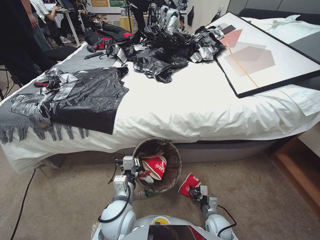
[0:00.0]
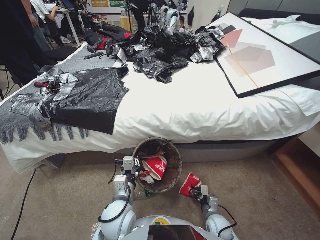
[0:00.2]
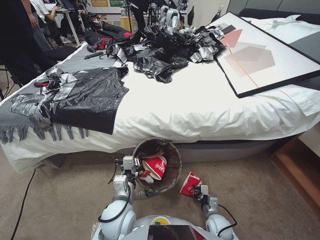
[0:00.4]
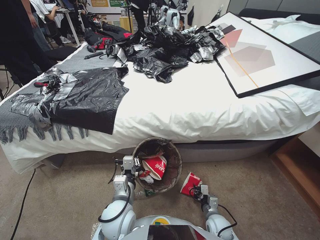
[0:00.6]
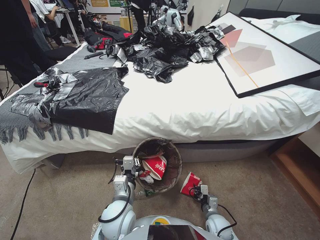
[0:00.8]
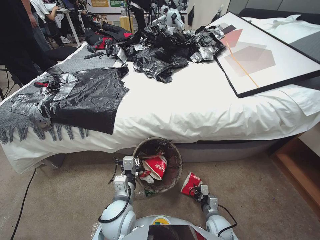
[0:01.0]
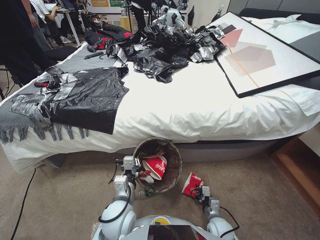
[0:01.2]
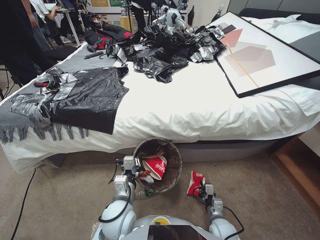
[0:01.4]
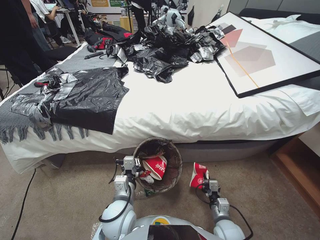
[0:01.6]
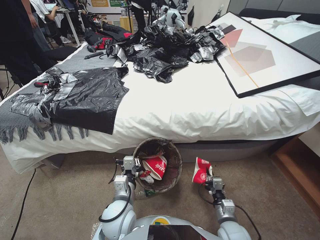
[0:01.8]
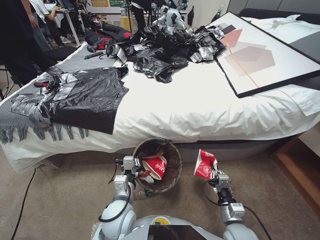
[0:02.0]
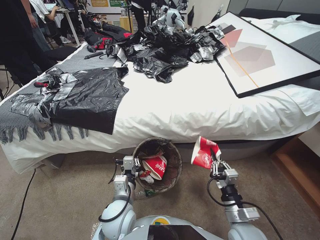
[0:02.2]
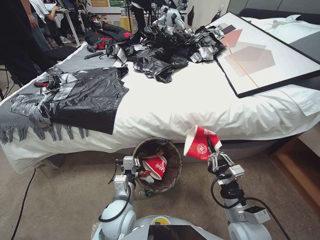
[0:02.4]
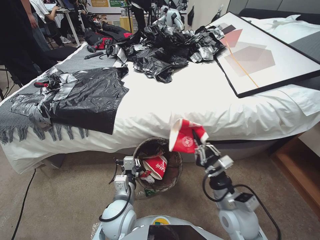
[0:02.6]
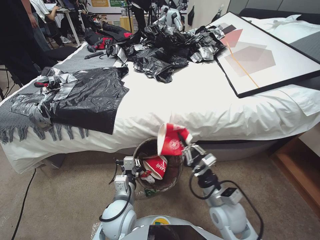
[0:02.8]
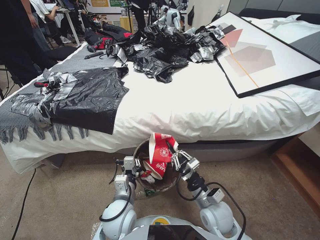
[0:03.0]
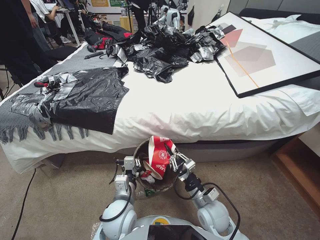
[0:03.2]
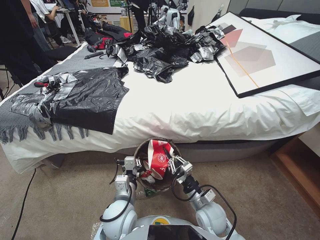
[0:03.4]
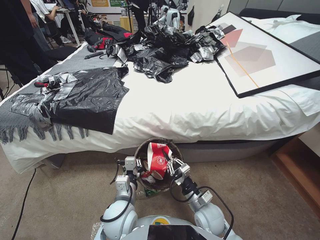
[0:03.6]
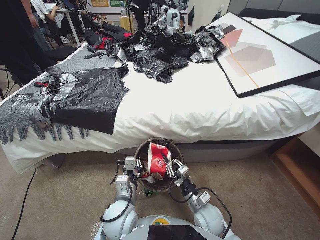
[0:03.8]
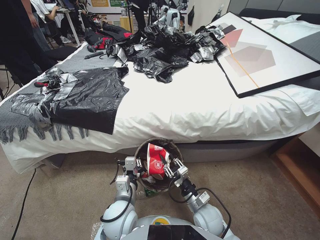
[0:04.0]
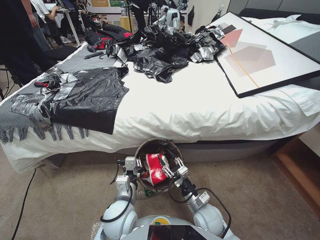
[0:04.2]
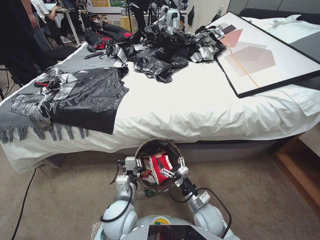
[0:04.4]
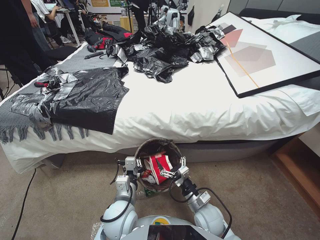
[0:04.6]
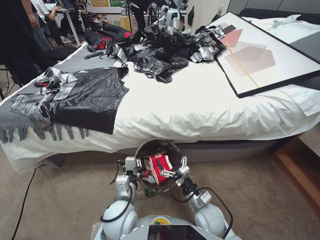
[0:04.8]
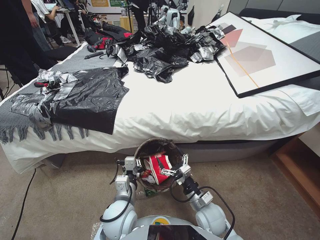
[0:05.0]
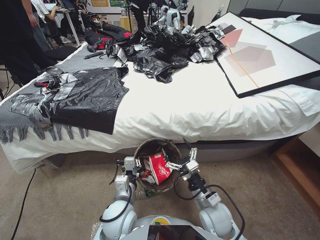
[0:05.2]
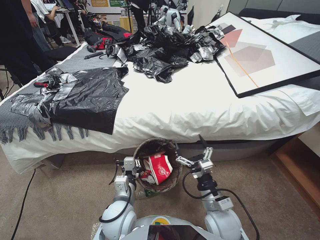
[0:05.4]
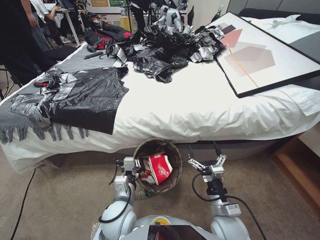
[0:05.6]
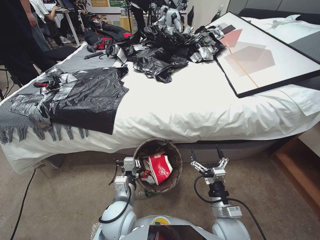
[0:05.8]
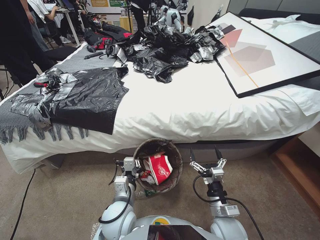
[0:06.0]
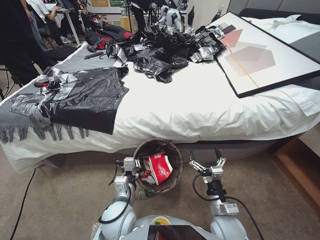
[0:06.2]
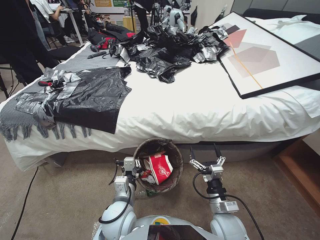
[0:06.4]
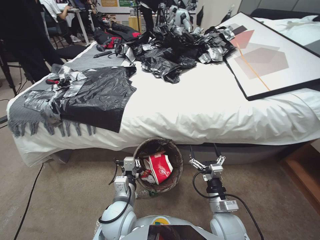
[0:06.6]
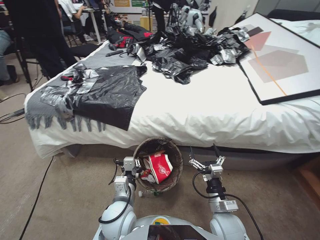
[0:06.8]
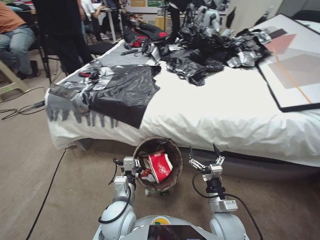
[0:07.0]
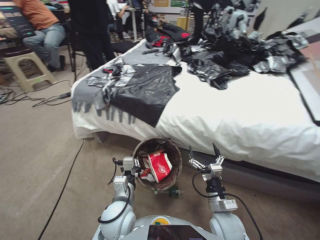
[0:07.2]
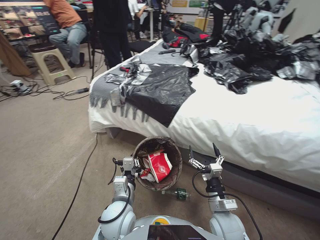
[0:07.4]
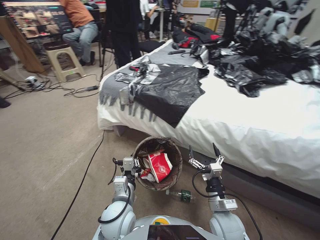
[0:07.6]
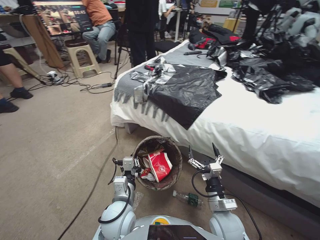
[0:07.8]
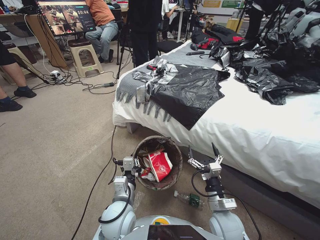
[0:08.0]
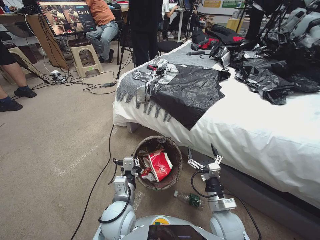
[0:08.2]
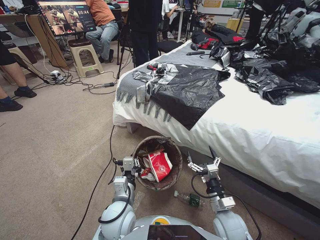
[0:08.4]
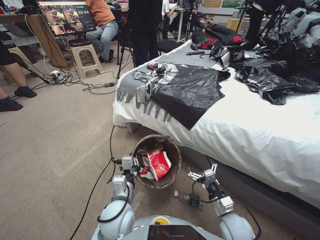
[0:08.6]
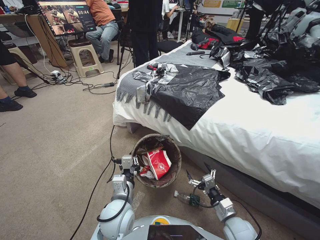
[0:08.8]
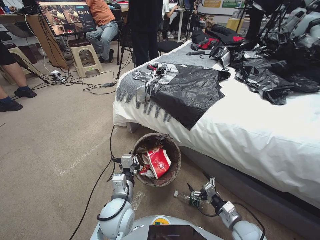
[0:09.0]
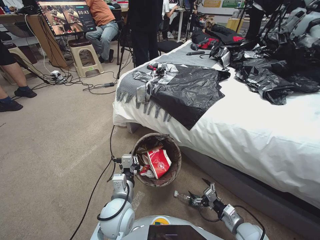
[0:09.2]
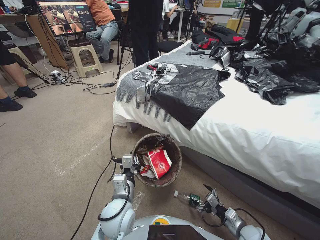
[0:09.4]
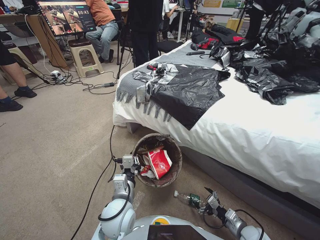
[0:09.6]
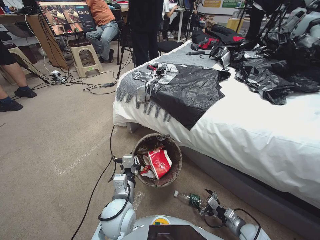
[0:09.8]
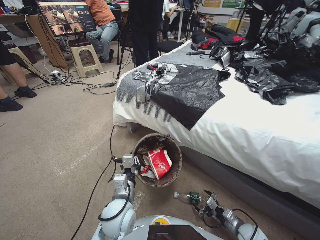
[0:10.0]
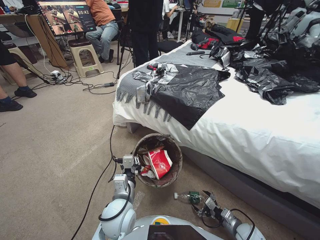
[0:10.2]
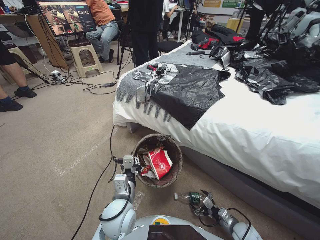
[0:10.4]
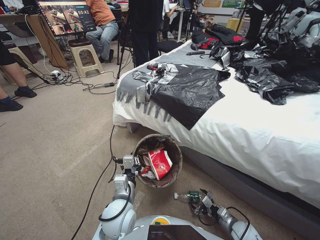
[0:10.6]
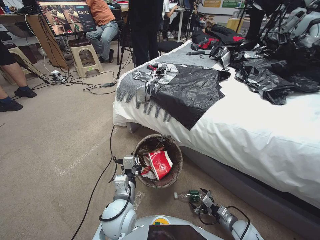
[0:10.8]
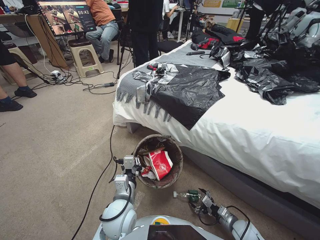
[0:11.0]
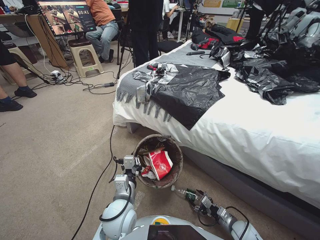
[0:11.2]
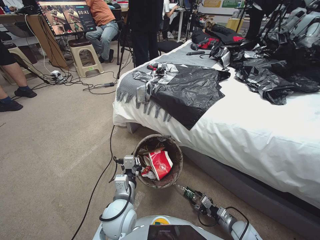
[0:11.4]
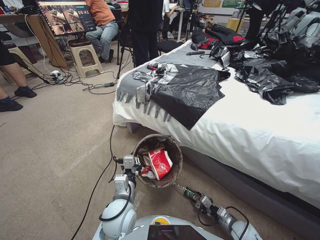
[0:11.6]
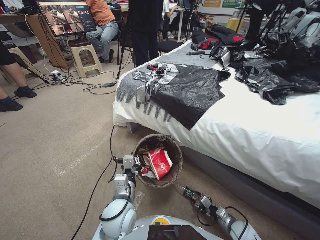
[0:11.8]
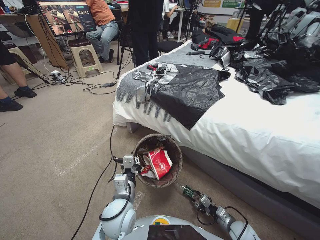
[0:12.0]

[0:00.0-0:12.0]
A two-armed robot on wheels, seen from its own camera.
Task of the whole recording: Pick up the trash bin, then pick up the garbage from the floor and place it into the trash bin.
0:00.0 to 0:01.6: The right gripper travels upward by about 5 cm, and closes up.
0:01.6 to 0:03.0: The right gripper shifts some 20 cm upward.
0:03.0 to 0:04.4: The right gripper travels downward by about 10 cm, and opens up.
0:04.4 to 0:06.0: The right gripper goes roughly 5 cm upward.
0:07.6 to 0:09.0: The right gripper heads to the right and downward, covering about 10 cm.
0:09.0 to 0:10.4: The right gripper travels downward and to the right by about 10 cm.
0:10.4 to 0:12.0: The right gripper closes.

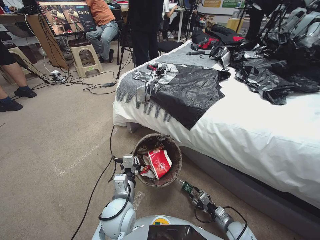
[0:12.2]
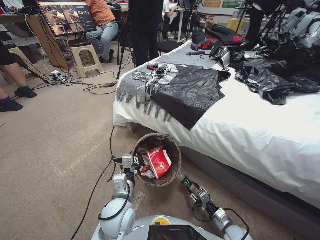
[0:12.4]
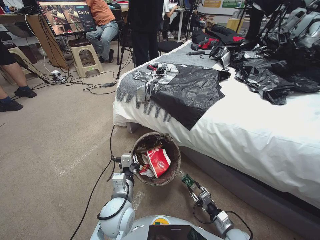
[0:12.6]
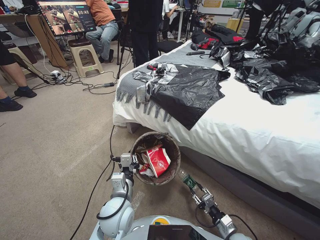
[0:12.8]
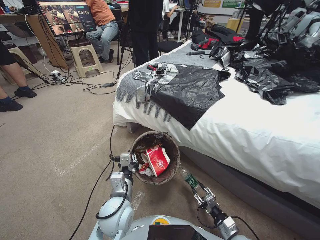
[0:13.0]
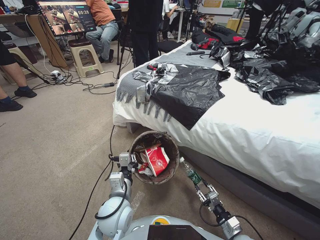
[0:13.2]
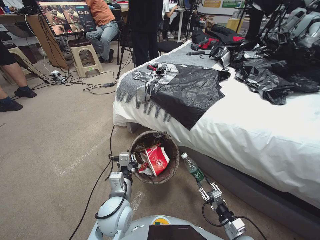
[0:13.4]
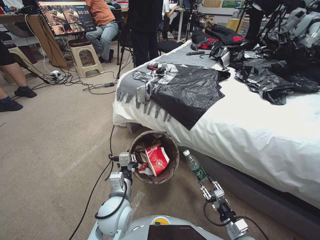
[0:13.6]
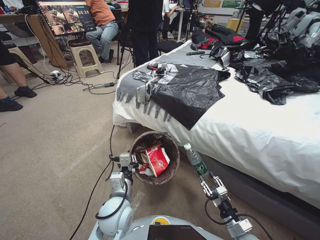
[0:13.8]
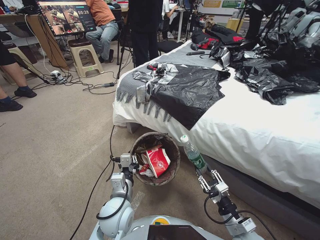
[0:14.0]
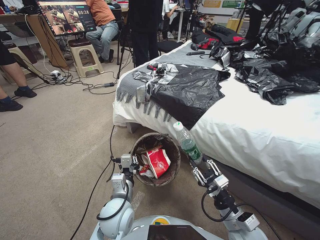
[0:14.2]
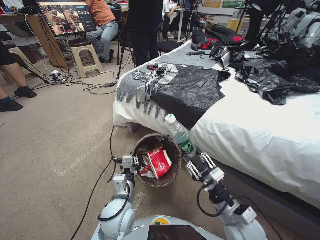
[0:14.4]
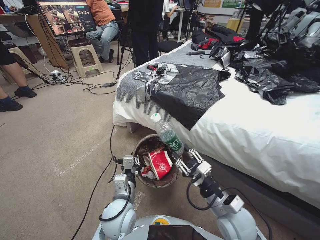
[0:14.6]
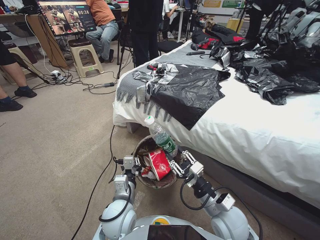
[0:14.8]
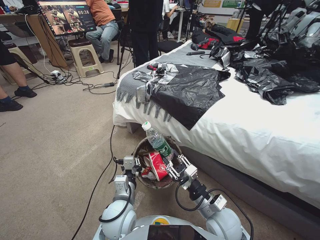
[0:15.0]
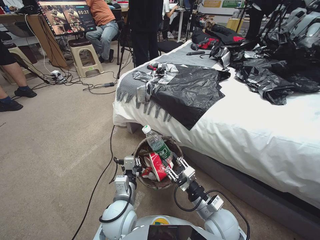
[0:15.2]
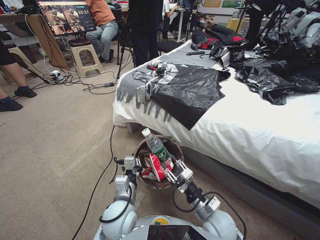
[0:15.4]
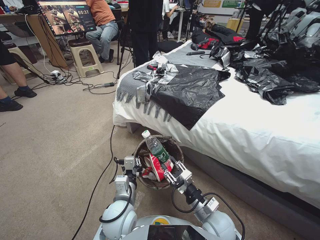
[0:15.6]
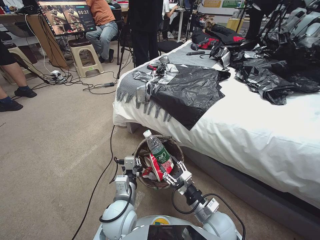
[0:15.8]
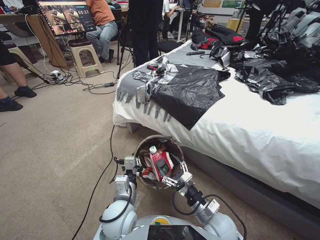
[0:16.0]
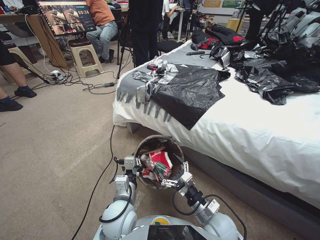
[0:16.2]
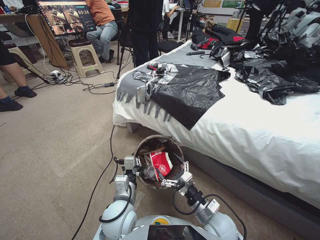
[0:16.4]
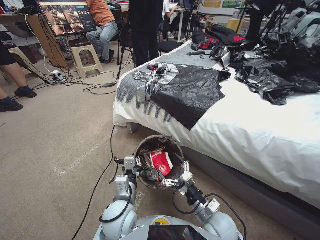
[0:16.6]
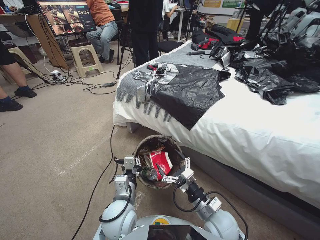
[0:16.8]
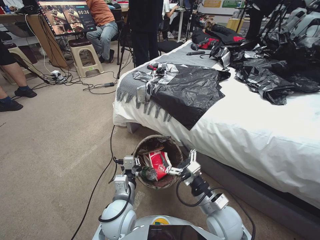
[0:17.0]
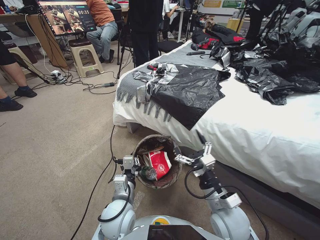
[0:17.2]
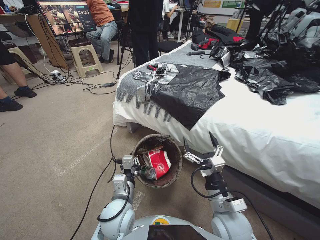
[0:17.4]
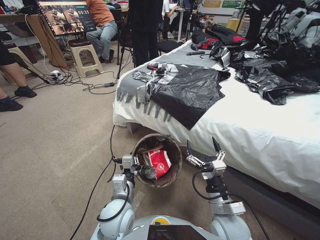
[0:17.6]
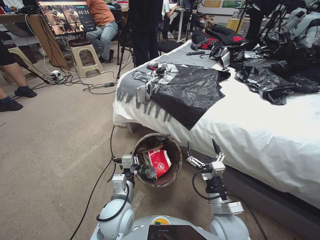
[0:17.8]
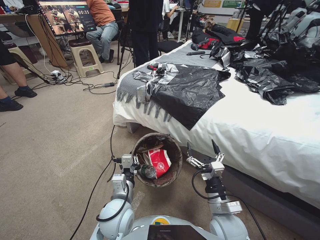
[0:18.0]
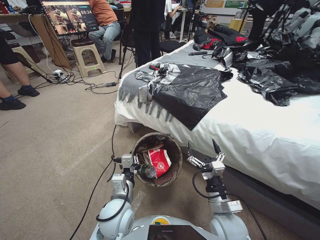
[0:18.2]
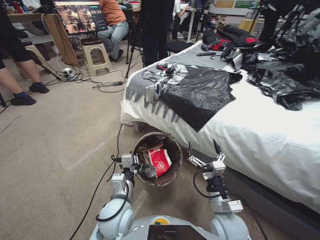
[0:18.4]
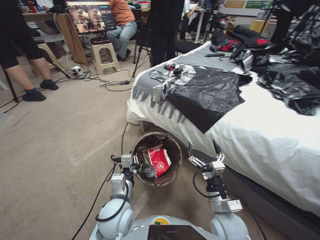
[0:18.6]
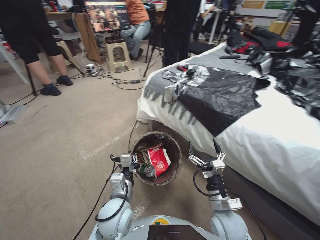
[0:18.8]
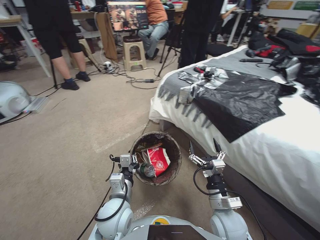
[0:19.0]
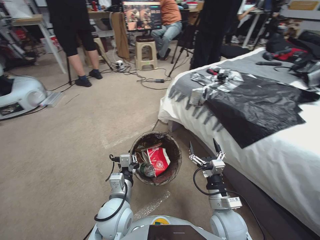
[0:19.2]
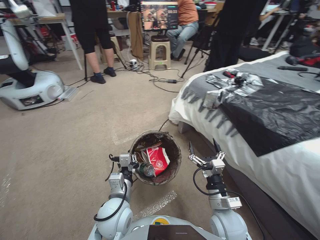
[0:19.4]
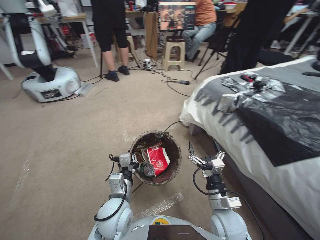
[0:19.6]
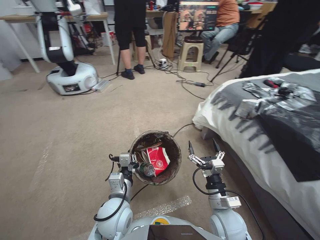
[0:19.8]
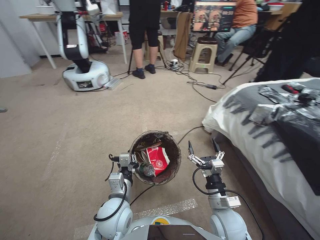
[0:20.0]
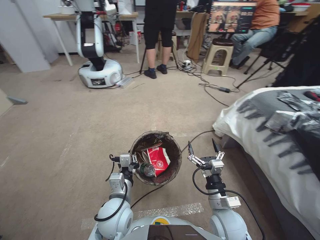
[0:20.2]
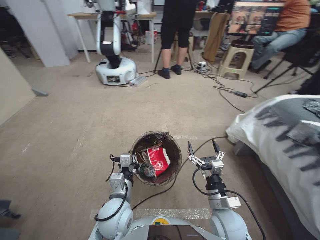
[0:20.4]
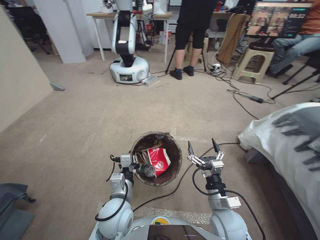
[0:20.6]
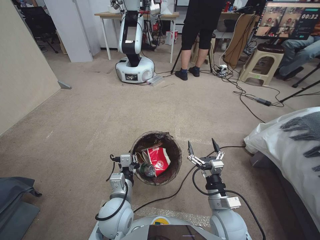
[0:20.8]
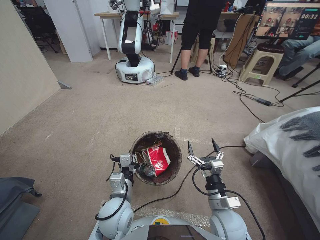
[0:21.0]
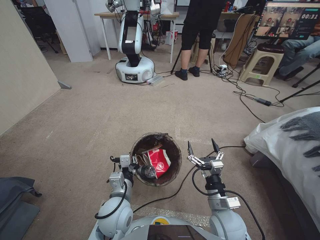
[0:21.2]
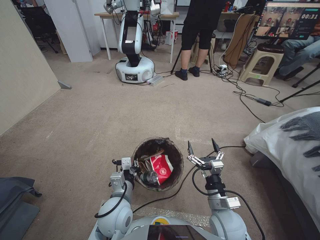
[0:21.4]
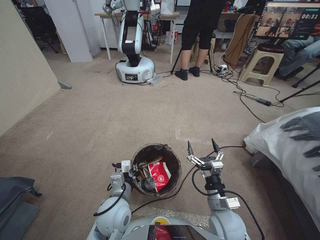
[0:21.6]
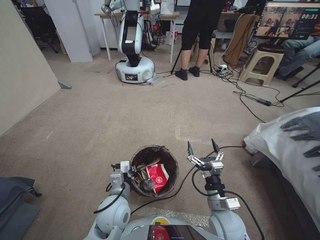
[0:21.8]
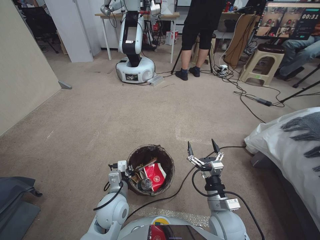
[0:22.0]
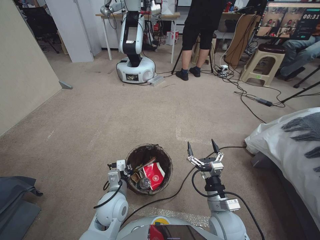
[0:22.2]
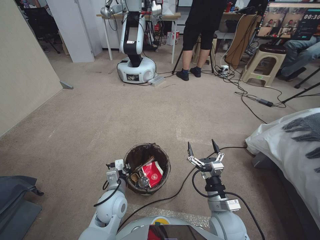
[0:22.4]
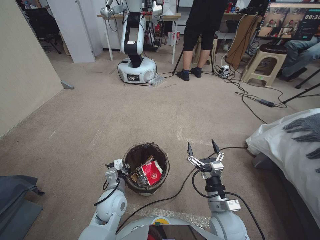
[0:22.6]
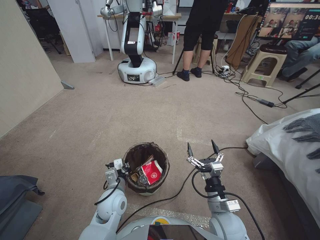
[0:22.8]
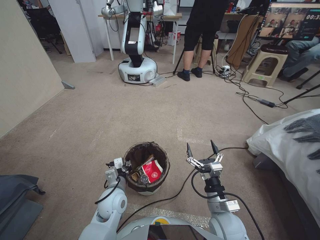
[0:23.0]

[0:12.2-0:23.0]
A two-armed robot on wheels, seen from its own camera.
Task of the whole recording: Pick up the trash bin, then pick up the garbage from the floor and place it into the trash bin.
0:12.2 to 0:13.8: The right gripper travels upward by approximately 10 cm.
0:13.8 to 0:15.2: The right gripper goes approximately 20 cm to the left, upward and forward.
0:15.2 to 0:16.8: The right gripper opens up.
0:21.4 to 0:23.0: The left gripper travels downward by some 5 cm.
